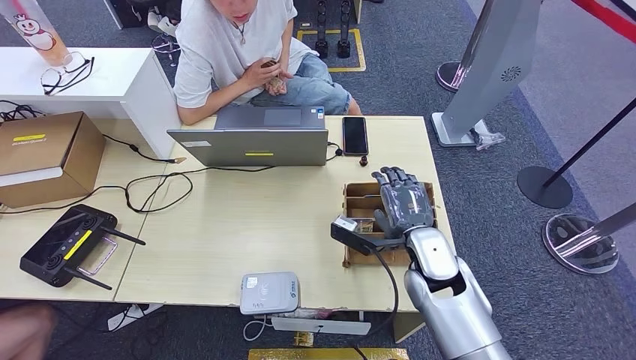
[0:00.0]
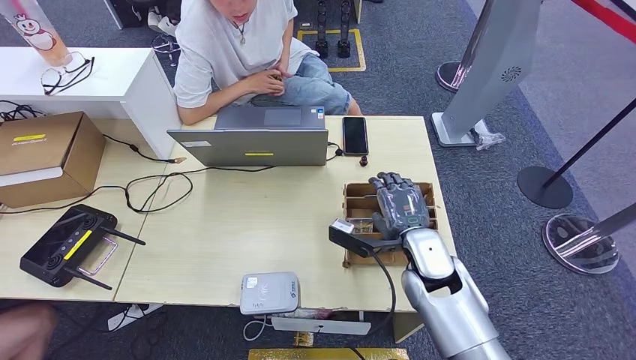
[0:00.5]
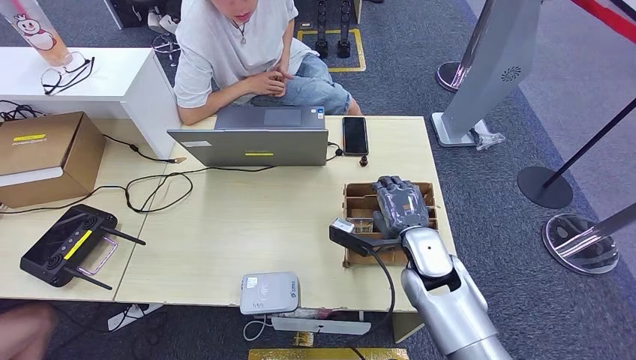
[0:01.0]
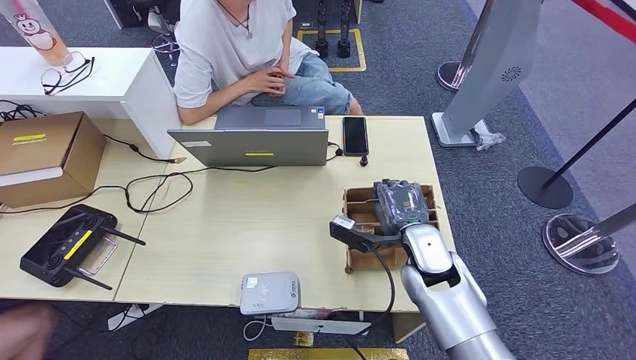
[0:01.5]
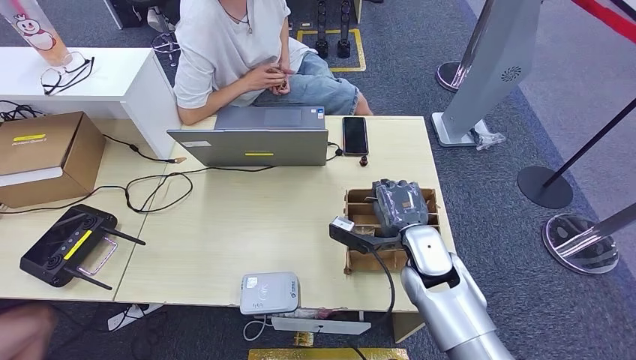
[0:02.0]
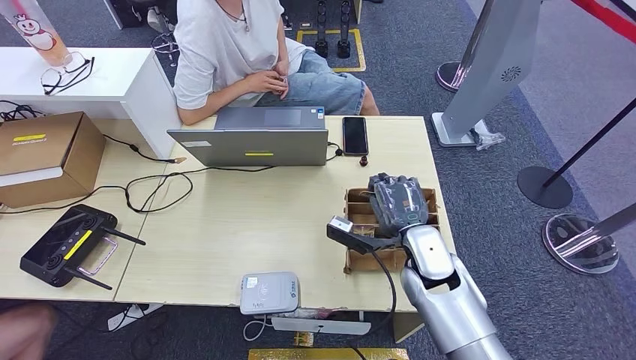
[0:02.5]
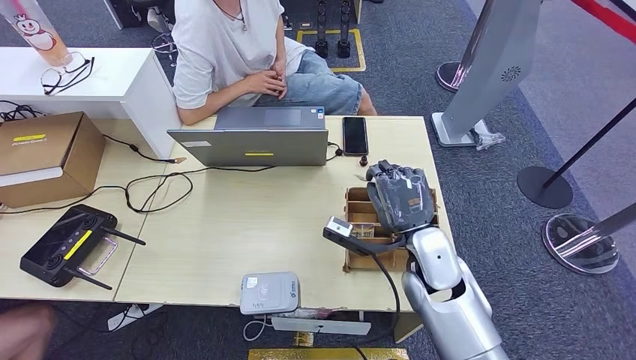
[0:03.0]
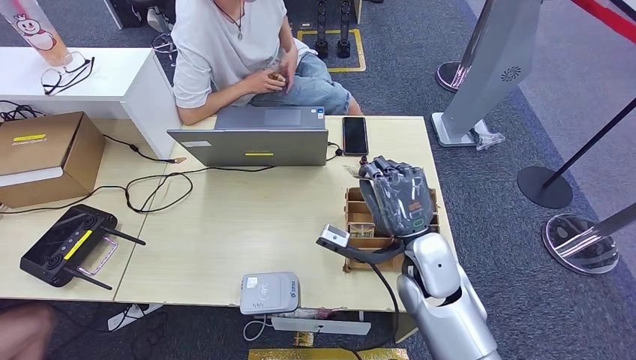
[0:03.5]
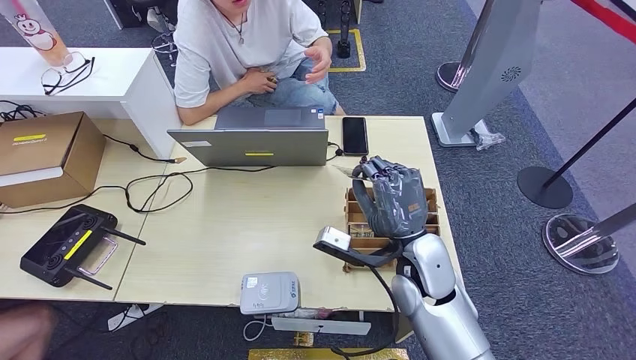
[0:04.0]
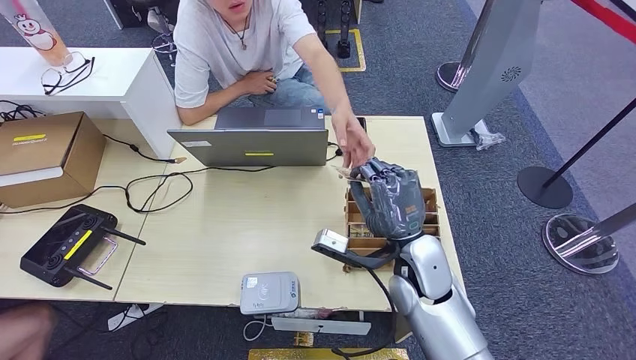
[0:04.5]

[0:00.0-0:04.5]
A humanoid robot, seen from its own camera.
Step, 0:00.0 to 0:03.0: Pick up the room key from the key card box.
Step, 0:03.5 to 0:04.5: Hand the room key to the person.
0:00.0 to 0:02.0: The hands stay close to where they were, moving slightly.
0:02.0 to 0:04.5: The right hand ends up roughly 5 cm from where it was.

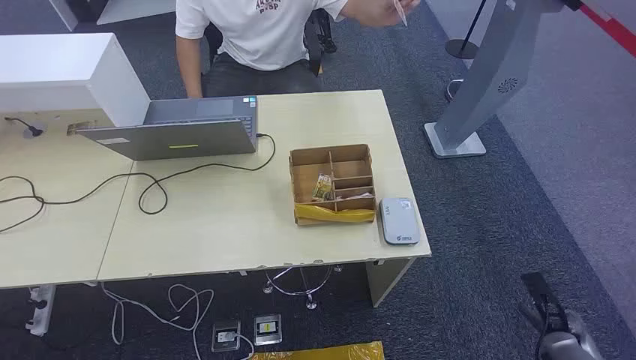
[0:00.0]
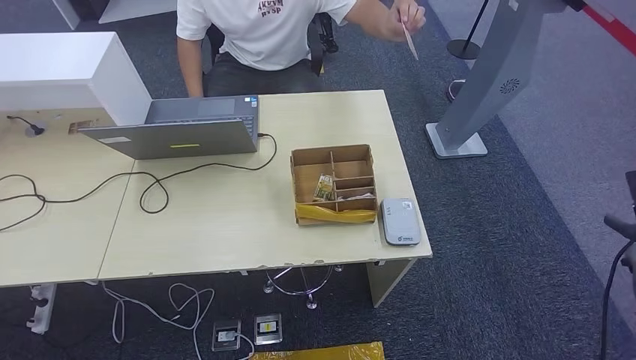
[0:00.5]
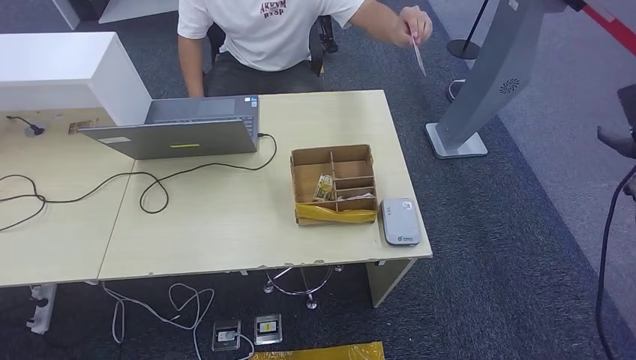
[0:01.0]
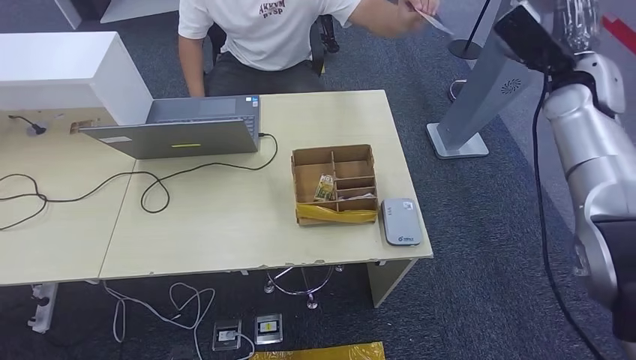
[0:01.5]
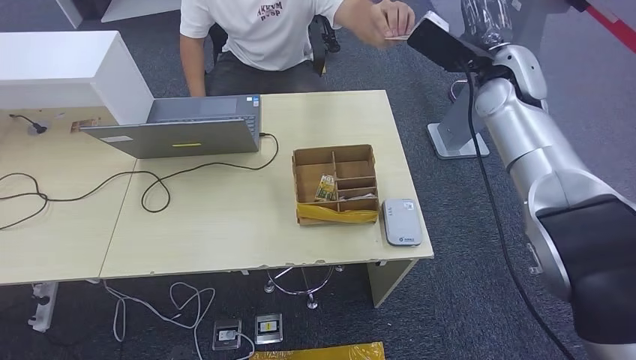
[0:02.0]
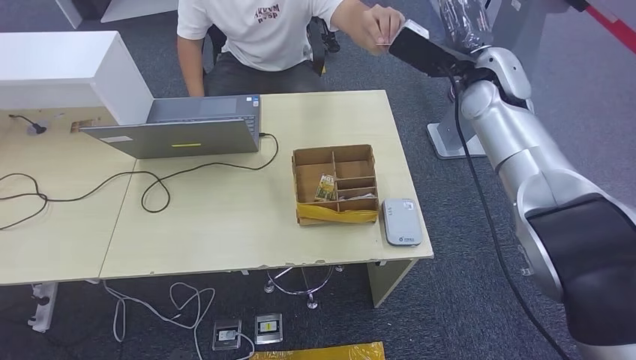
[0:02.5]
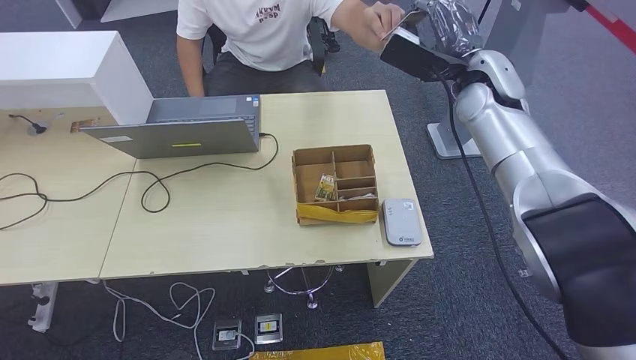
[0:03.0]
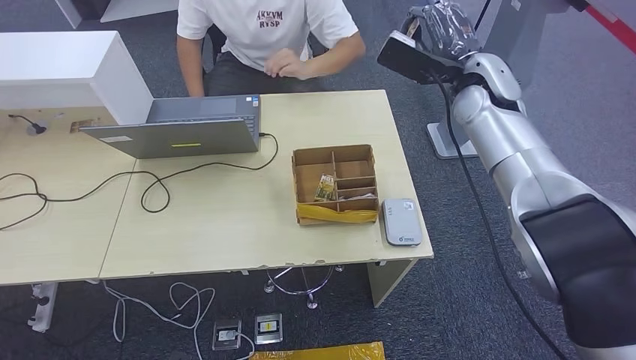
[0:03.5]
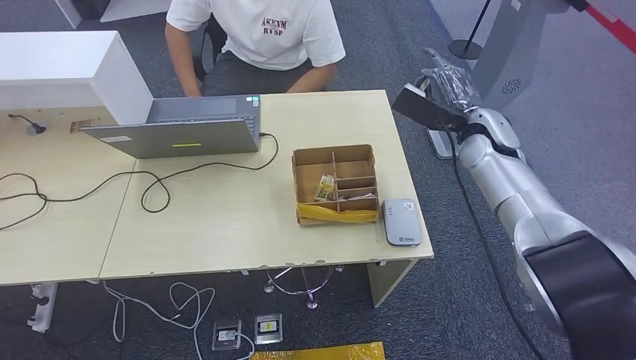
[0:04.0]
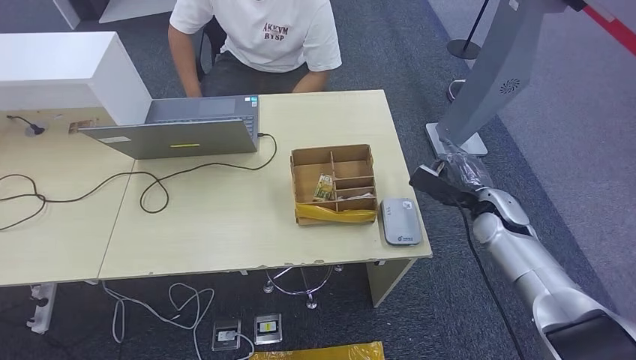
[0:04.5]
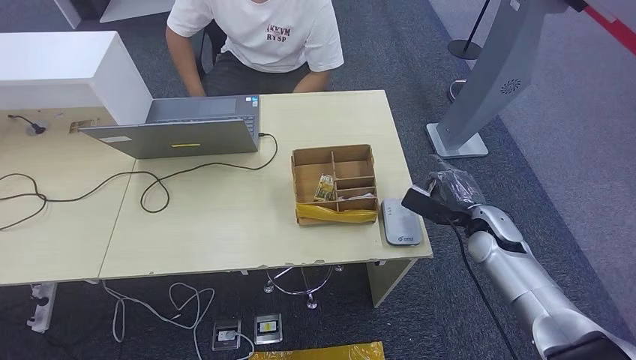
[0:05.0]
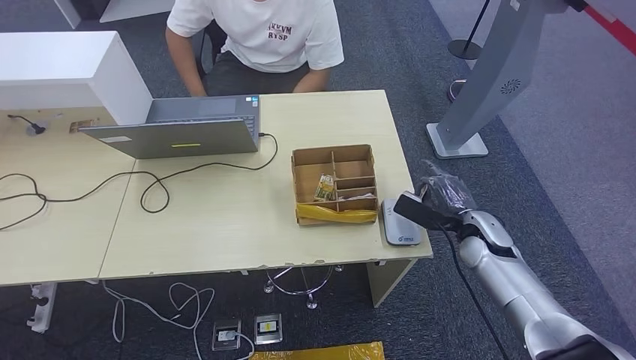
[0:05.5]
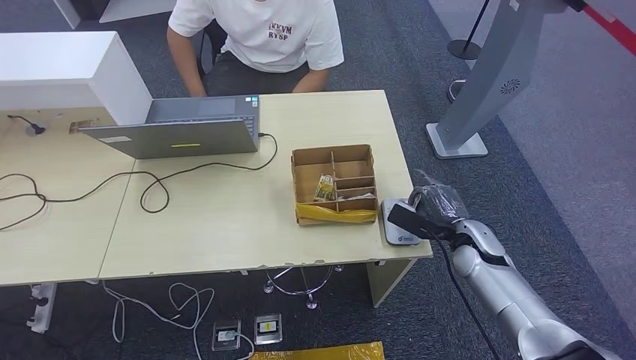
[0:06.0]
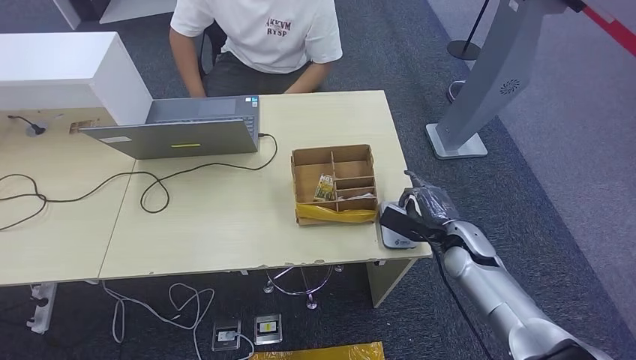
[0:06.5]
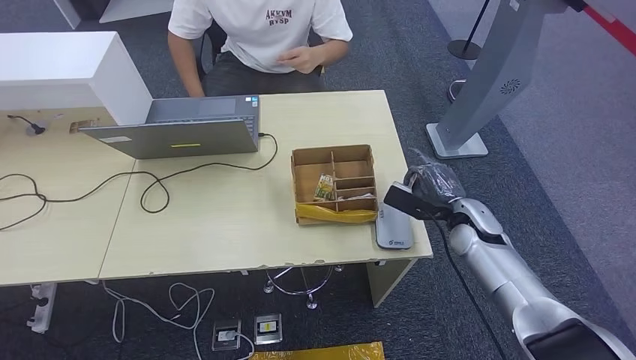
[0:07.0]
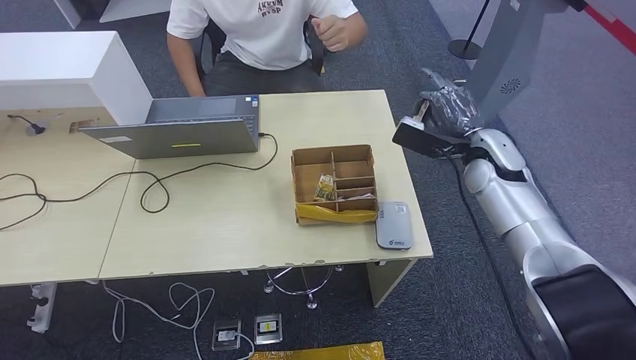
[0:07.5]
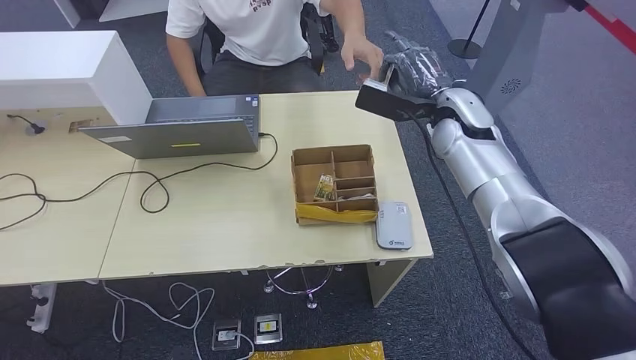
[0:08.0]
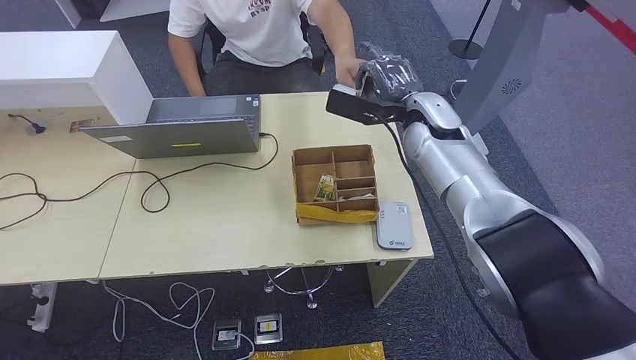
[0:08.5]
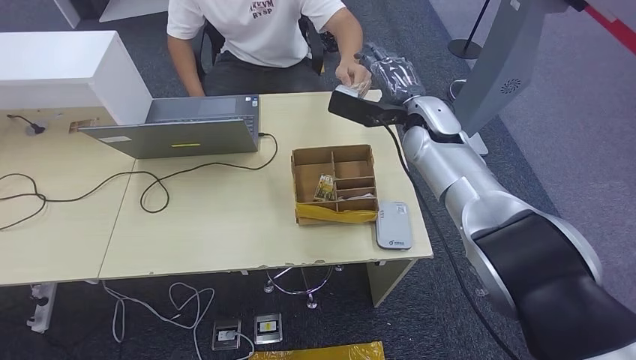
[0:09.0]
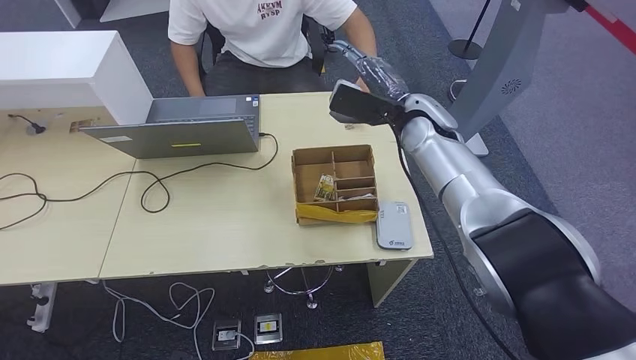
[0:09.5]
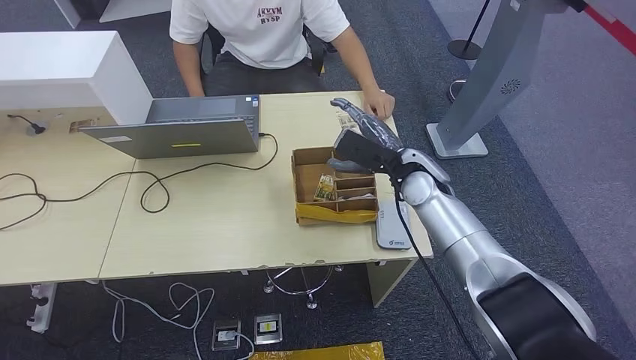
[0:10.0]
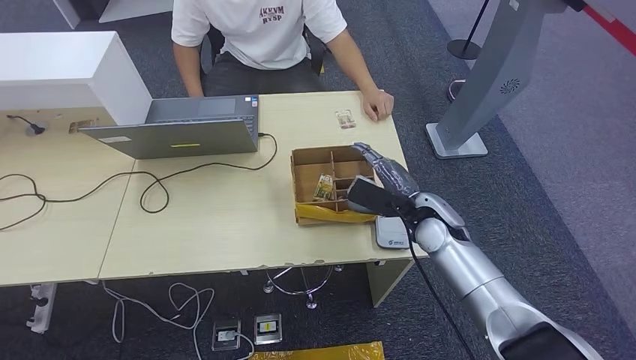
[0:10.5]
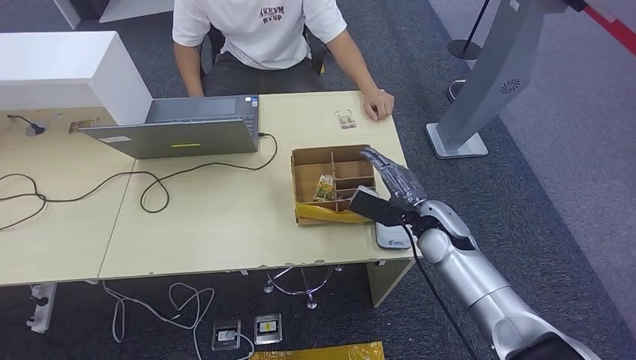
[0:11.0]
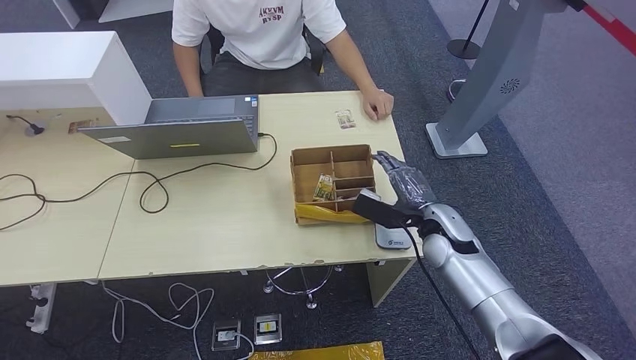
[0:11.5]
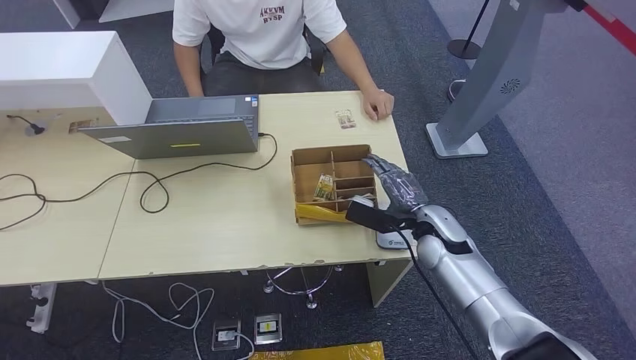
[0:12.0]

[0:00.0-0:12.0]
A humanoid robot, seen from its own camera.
Step, 0:00.0 to 0:04.0: Take the ID card from the person's hand.
Step, 0:05.0 to 0:06.5: Place the ID card on the card reader.
Step, 0:08.0 to 0:10.0: Hand the ID card to the person.
0:02.0 to 0:04.0: The right hand moves downward, approximately 10 cm.
0:04.0 to 0:06.0: The right hand shifts some 20 cm downward and backward.
0:06.0 to 0:08.0: The right hand shifts about 25 cm upward and forward.
0:08.0 to 0:10.0: The right hand is displaced downward and to the left by approximately 10 cm.
0:10.0 to 0:12.0: The right hand travels downward and backward by about 10 cm.

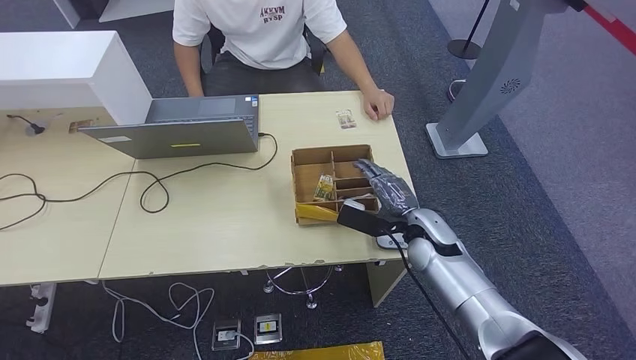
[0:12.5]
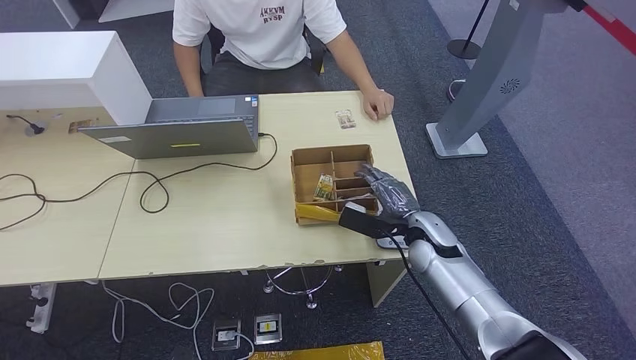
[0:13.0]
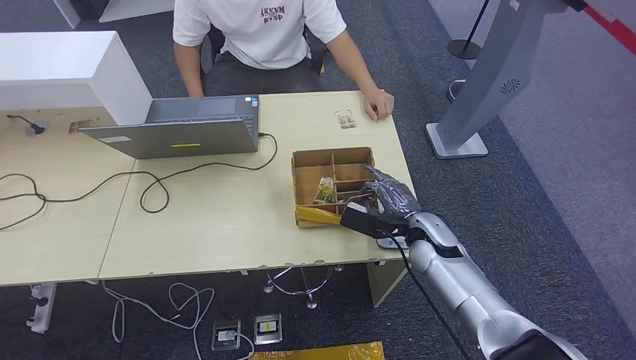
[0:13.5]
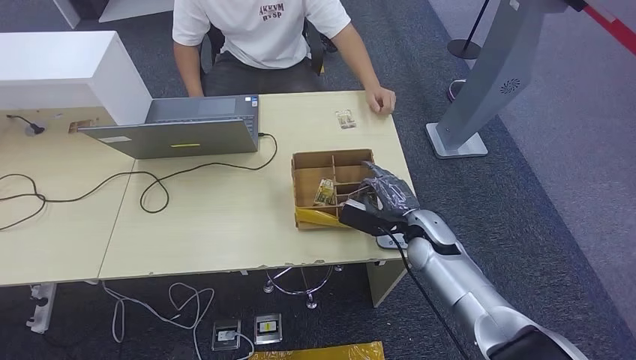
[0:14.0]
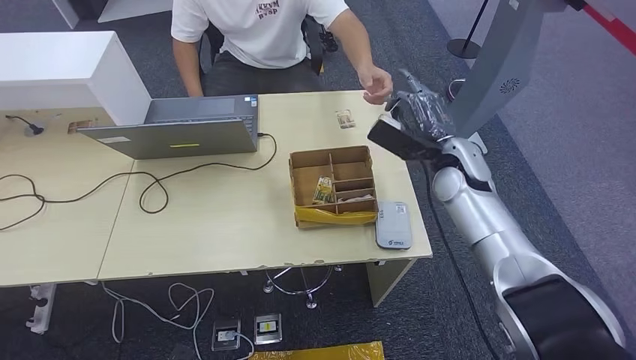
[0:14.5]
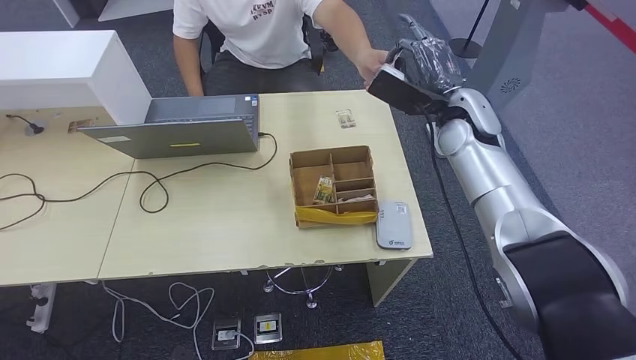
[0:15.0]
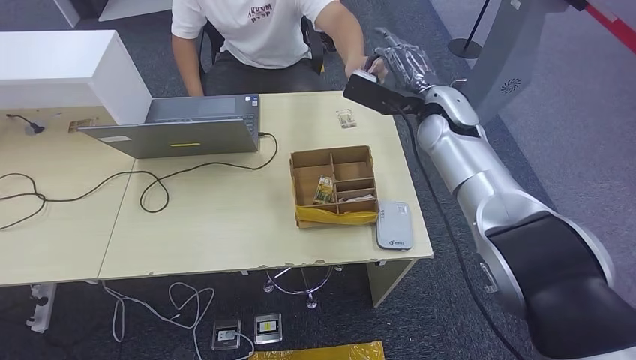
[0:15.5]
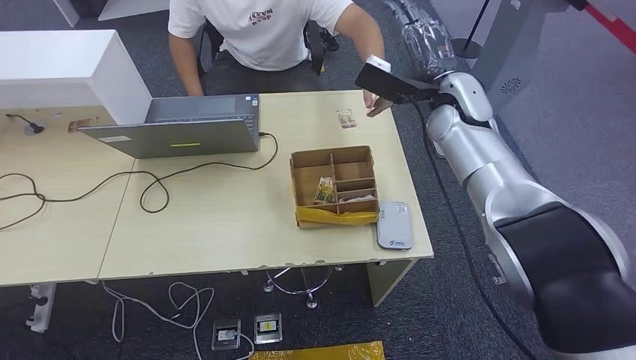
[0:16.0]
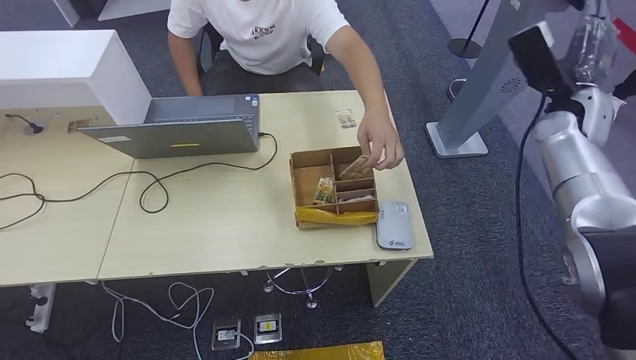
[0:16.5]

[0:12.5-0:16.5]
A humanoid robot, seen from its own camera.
Step, 0:15.5 to 0:16.5: Hand the room key to the person.
0:12.5 to 0:14.5: The right hand goes approximately 15 cm upward and forward.
0:14.5 to 0:16.5: The right hand is displaced to the right and upward by approximately 20 cm.
